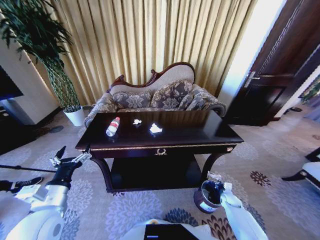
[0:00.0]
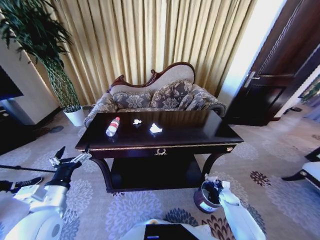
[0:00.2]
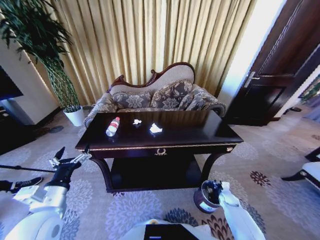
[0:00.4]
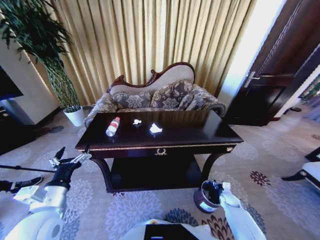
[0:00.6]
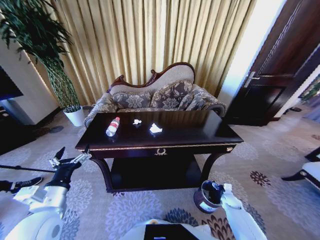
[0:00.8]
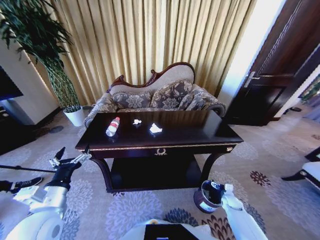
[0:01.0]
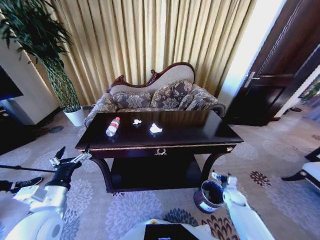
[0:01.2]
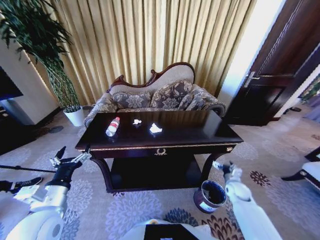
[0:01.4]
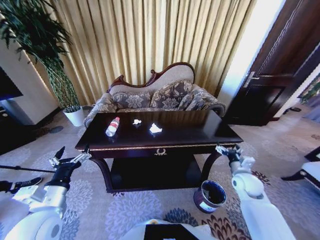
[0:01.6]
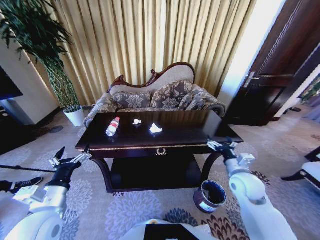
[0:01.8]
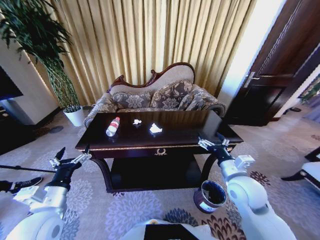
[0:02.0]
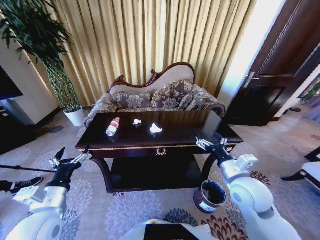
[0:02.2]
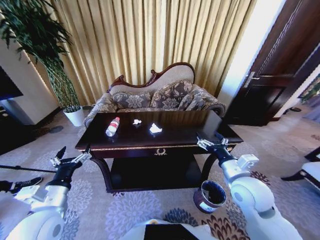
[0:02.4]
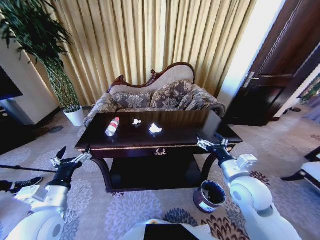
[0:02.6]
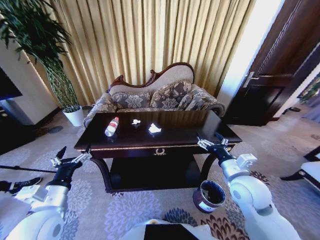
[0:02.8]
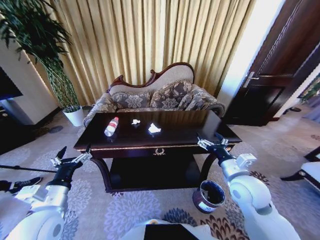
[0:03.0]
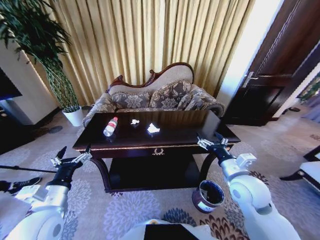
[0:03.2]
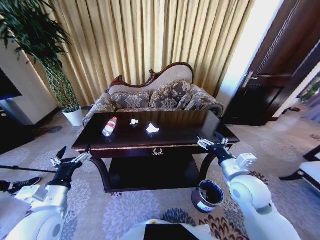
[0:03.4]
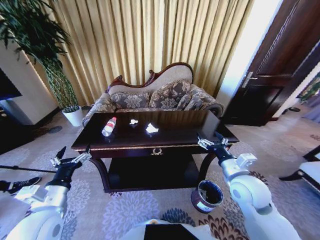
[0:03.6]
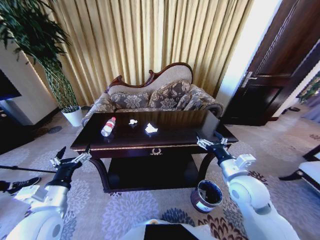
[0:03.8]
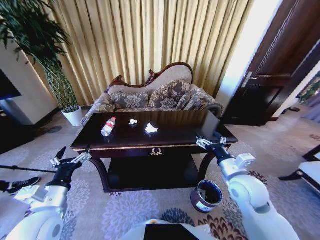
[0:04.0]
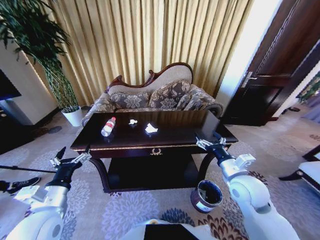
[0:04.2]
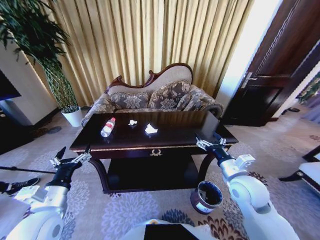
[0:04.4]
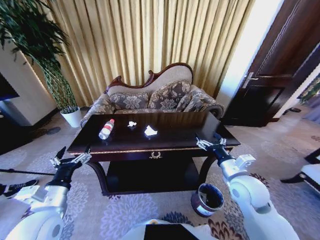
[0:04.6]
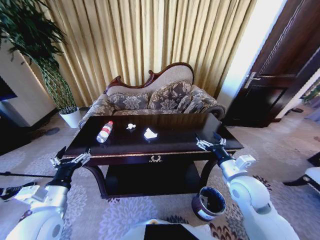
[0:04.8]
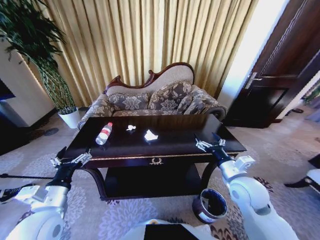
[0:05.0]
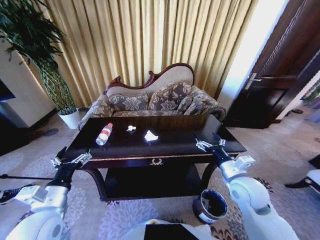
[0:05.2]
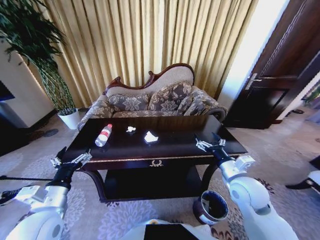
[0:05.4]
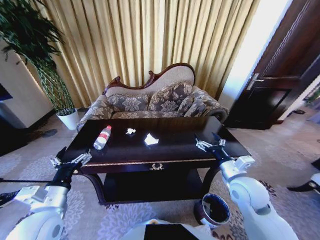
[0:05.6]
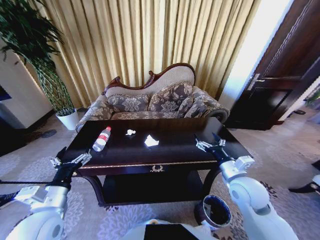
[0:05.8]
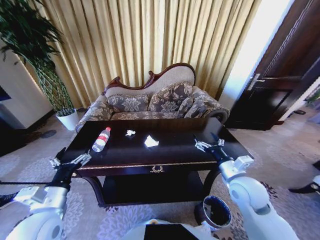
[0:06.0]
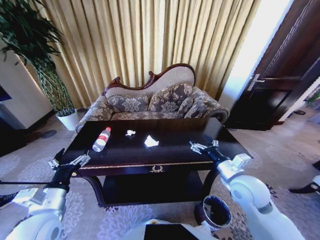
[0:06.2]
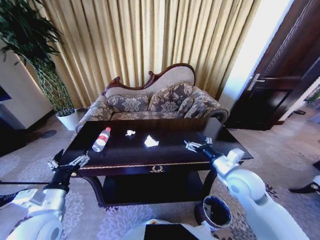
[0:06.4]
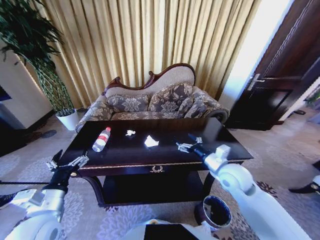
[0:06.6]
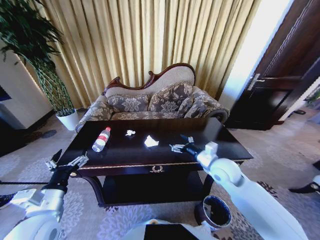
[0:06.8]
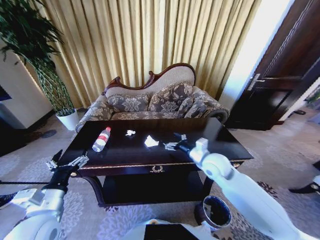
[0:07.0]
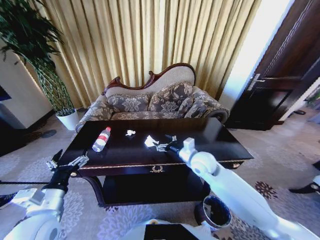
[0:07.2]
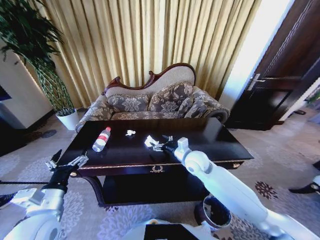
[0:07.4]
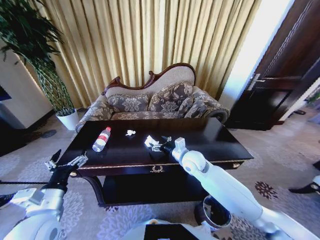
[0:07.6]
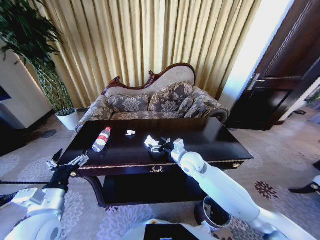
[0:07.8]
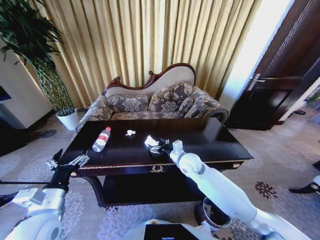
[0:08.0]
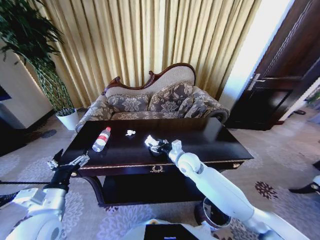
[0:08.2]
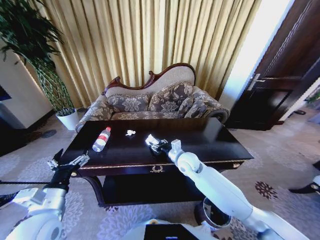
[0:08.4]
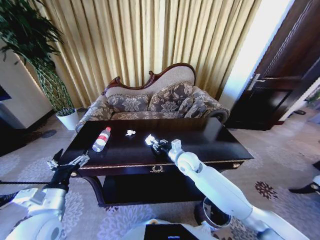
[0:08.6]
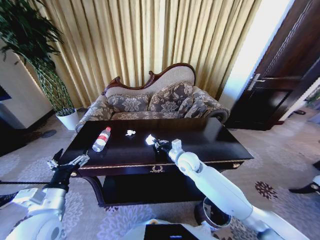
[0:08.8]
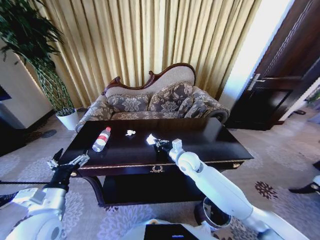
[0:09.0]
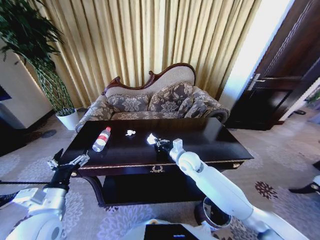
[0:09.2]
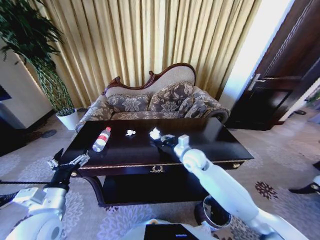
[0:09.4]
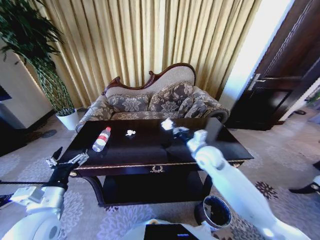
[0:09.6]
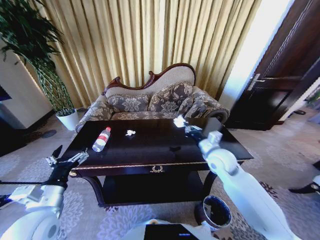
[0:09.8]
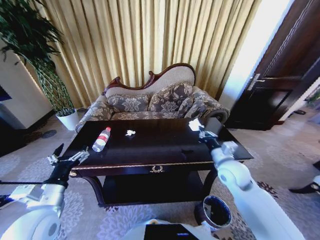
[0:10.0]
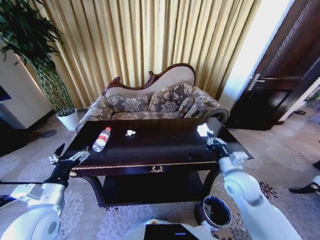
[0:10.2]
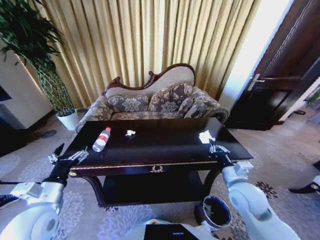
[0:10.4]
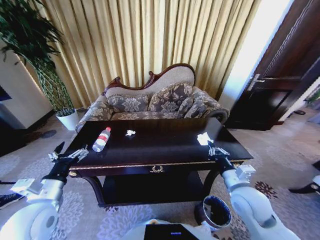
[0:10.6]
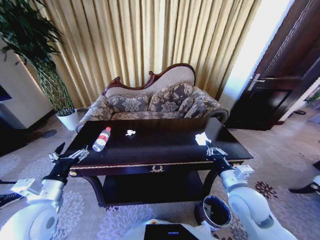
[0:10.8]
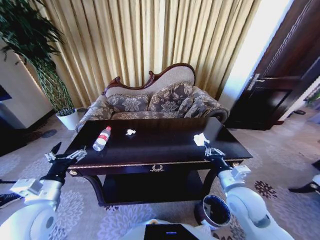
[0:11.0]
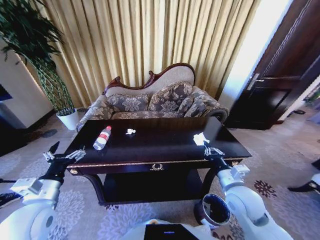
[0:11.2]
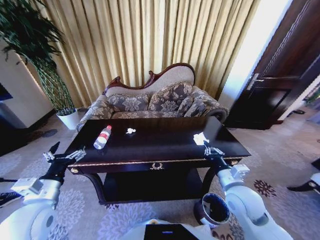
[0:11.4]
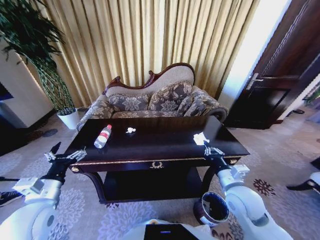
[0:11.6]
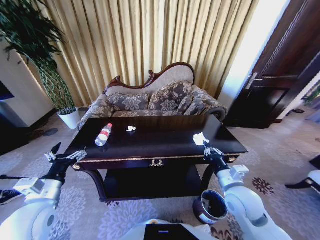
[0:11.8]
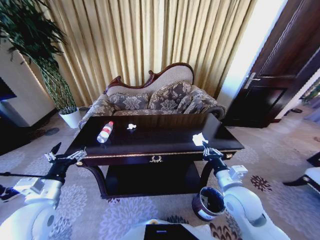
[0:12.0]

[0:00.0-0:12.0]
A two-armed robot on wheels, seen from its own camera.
Task of the whole recording: Move to the front of the table and place the trash on the table into the trash bin.
0:00.0 to 0:01.6: The right gripper travels upward by roughly 25 cm, and opens its fingers.
0:01.6 to 0:03.0: The right gripper is displaced upward, to the left and backward by some 15 cm.
0:06.0 to 0:07.6: The right gripper heads to the left and forward, covering approximately 20 cm.
0:07.6 to 0:09.0: The right gripper closes.
0:09.0 to 0:10.4: The right gripper moves backward and to the right, roughly 20 cm.

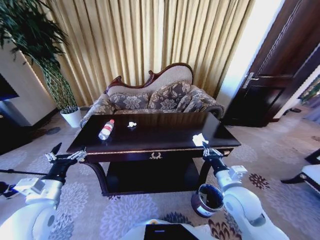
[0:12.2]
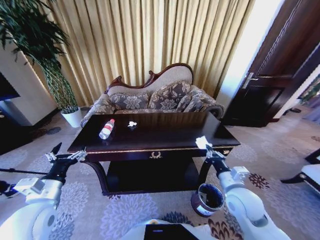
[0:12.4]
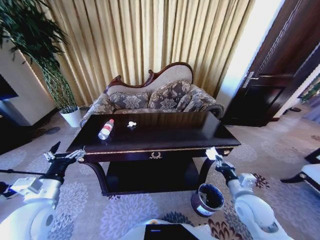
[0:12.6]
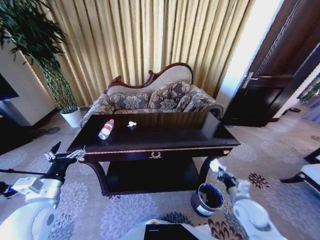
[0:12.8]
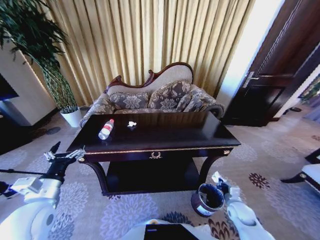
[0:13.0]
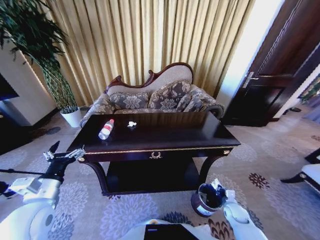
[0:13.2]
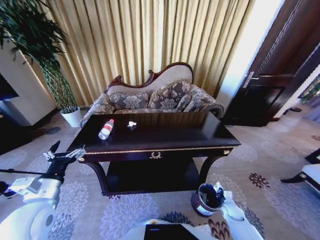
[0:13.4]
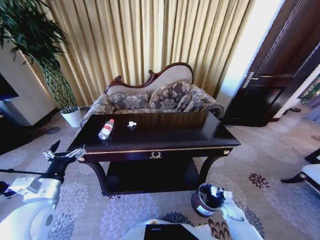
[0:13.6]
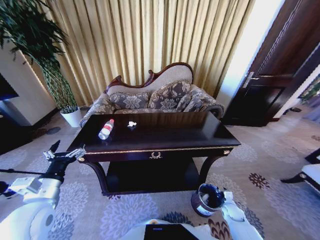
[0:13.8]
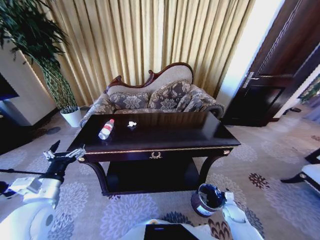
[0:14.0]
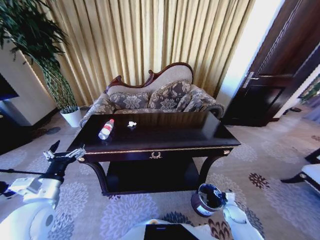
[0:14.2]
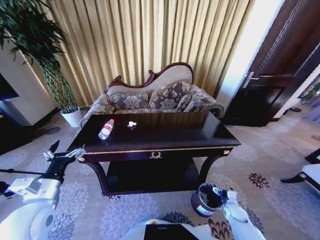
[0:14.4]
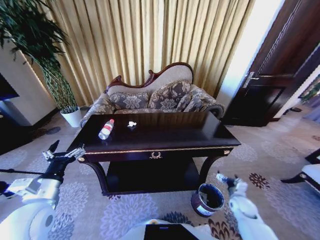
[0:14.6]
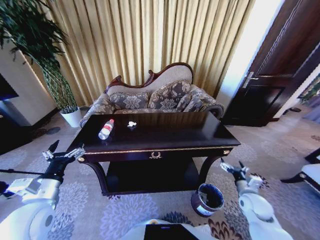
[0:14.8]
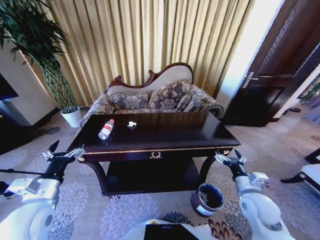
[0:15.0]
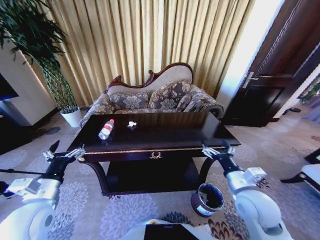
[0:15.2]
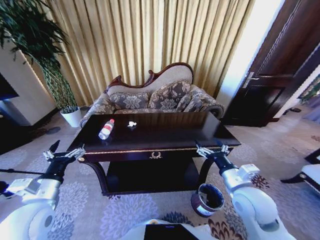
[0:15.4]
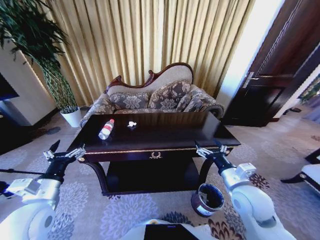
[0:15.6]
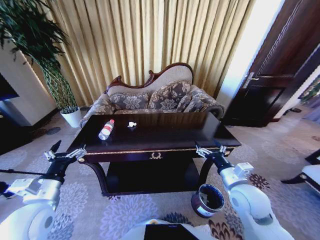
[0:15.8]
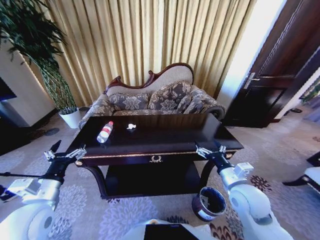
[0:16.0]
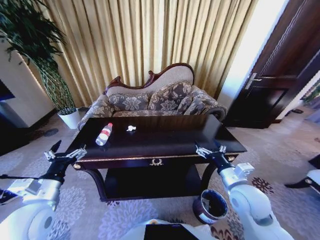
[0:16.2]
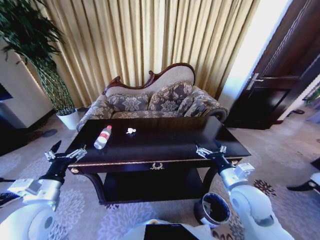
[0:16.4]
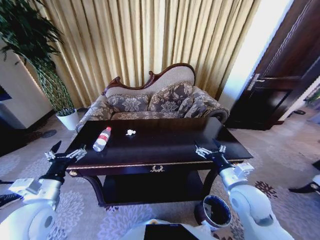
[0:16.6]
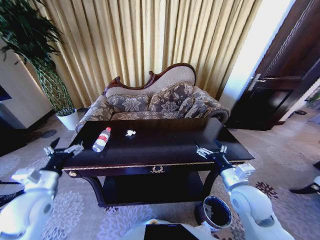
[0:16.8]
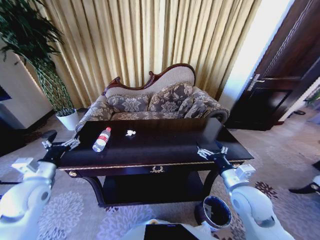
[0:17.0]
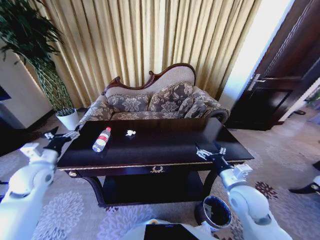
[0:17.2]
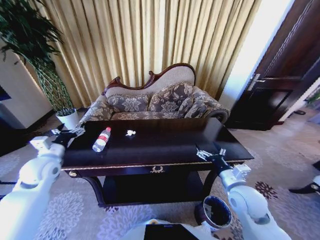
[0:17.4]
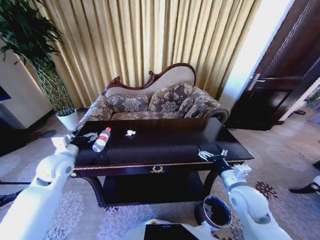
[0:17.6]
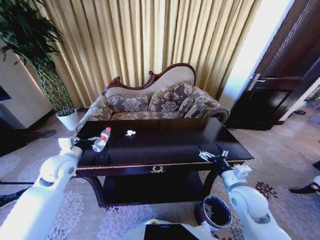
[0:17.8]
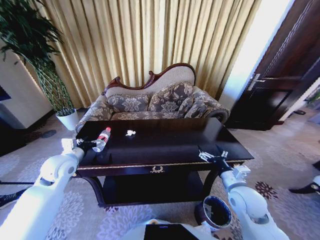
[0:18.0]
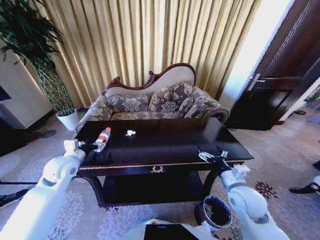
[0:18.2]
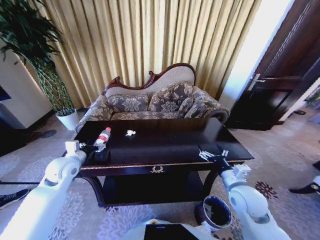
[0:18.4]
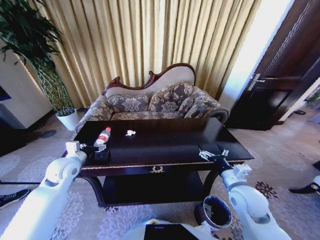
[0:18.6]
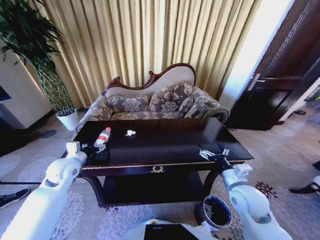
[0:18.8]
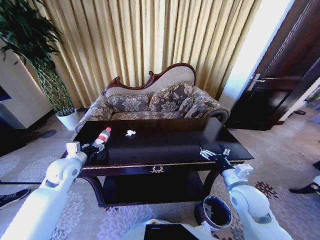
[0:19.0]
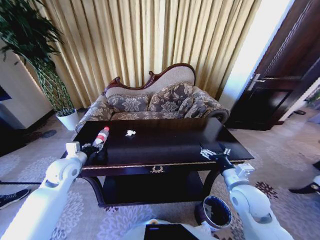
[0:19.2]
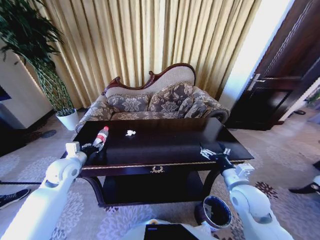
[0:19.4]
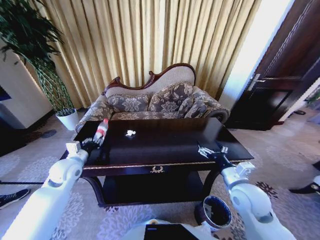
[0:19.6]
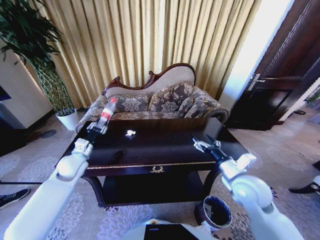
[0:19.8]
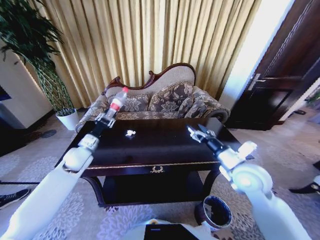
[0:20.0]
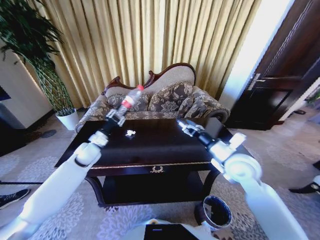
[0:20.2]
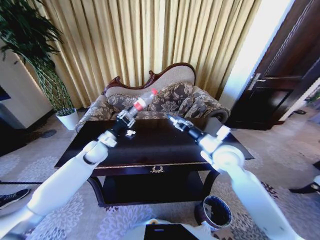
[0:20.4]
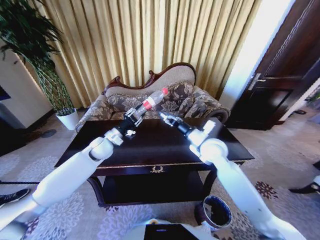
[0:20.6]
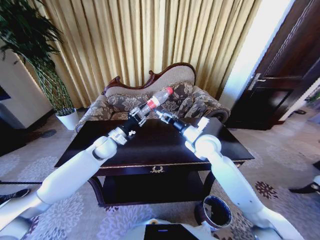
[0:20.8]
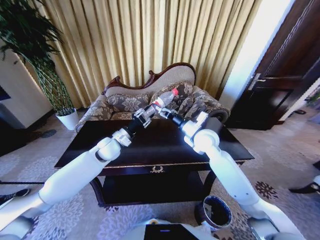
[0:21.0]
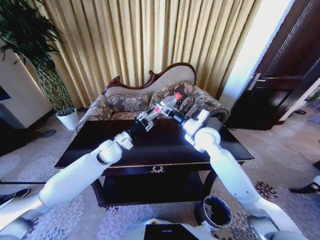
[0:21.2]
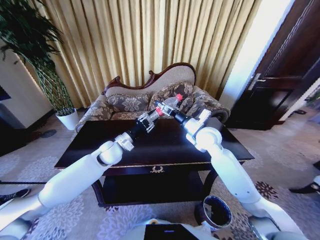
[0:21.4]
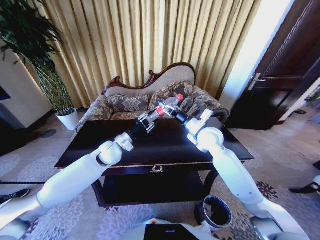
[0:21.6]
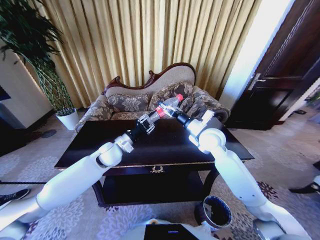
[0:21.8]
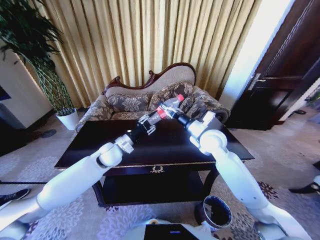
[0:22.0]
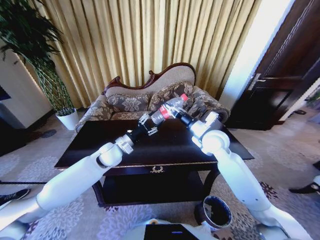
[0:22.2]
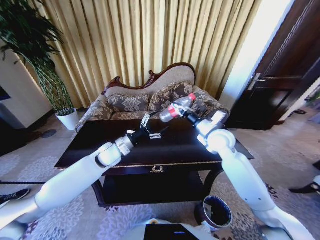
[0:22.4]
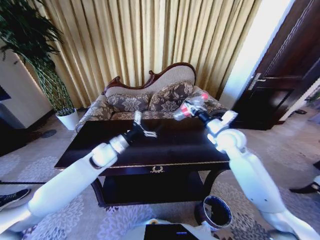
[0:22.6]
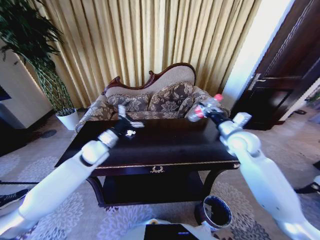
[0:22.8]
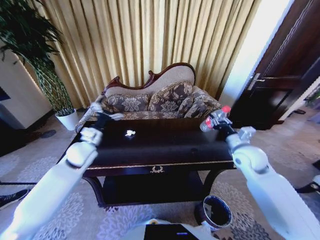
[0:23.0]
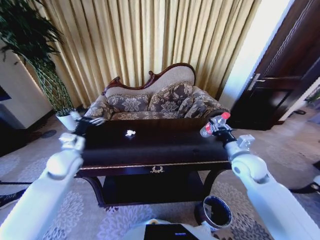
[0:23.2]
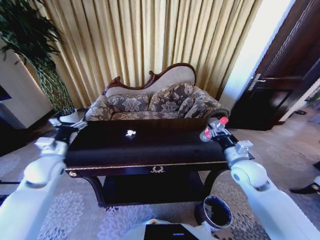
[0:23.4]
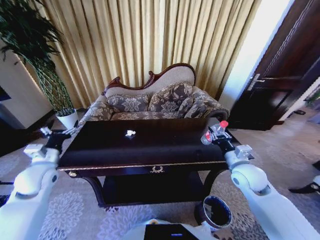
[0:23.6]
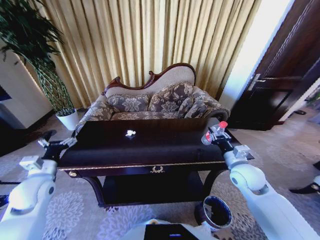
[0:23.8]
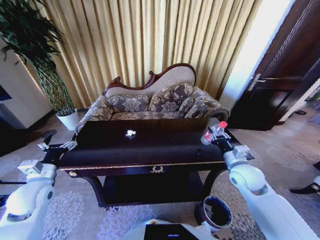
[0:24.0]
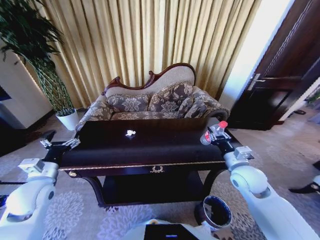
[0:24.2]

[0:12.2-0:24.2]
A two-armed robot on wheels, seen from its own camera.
Task of the whole recording: Move to the front of the table and place the trash on the table into the trash bin.
0:12.2 to 0:13.8: The right gripper goes approximately 35 cm downward and to the right, and opens.
0:13.8 to 0:15.2: The right gripper travels upward by some 35 cm, and opens up.
0:16.6 to 0:18.2: The left gripper goes roughly 15 cm forward.
0:18.2 to 0:19.8: The left gripper closes. Meanwhile the right gripper changes place by roughly 5 cm.
0:19.8 to 0:21.2: The left gripper moves to the right, approximately 15 cm, while the right gripper heads forward and to the left, covering some 20 cm.
0:21.2 to 0:22.6: The left gripper opens, while the right gripper goes roughly 10 cm to the right, and closes its fingers.
0:22.6 to 0:24.2: The left gripper travels to the left and backward by some 25 cm. Meanwhile the right gripper shifts approximately 15 cm backward and downward.
